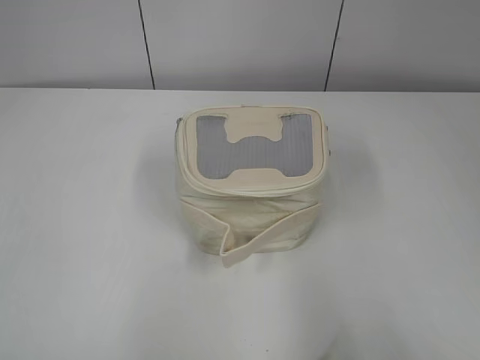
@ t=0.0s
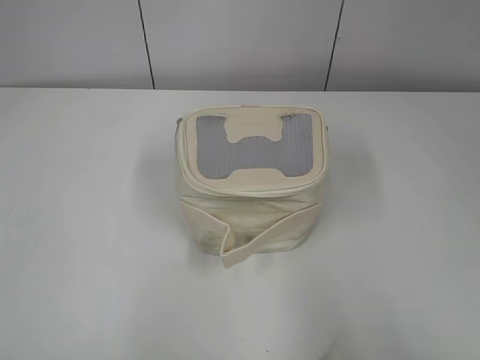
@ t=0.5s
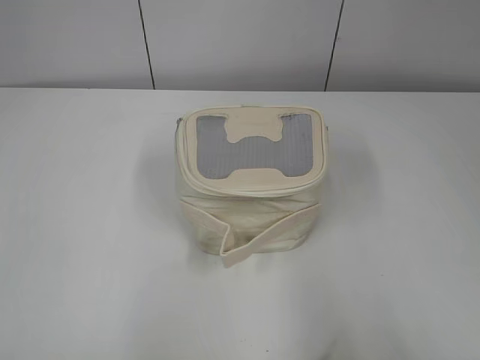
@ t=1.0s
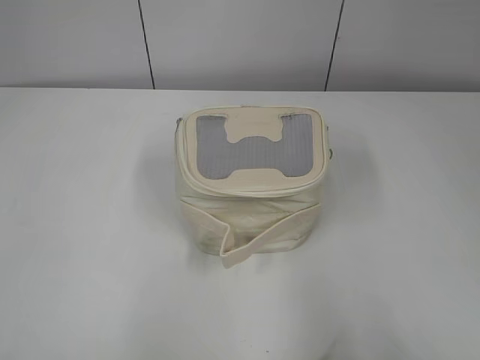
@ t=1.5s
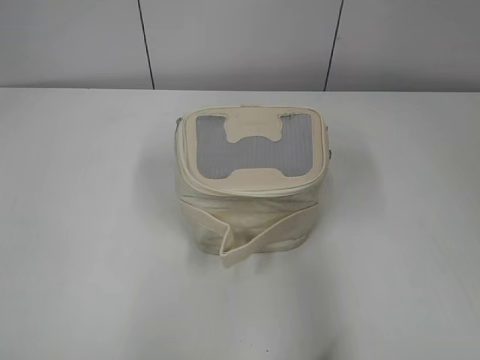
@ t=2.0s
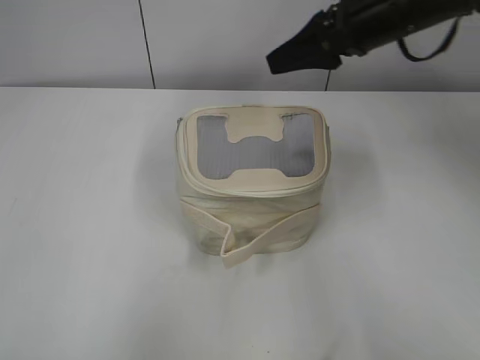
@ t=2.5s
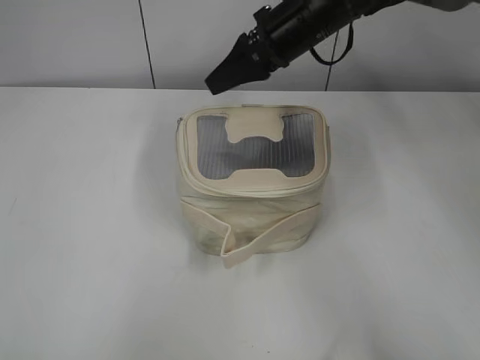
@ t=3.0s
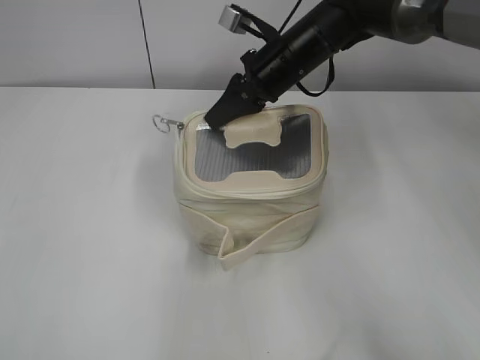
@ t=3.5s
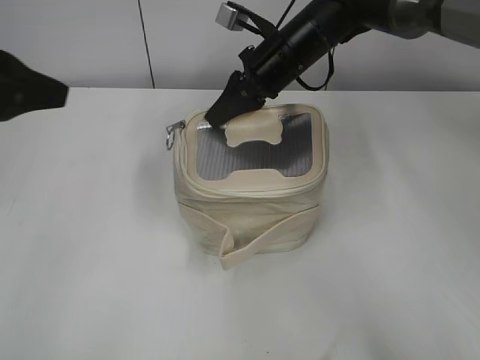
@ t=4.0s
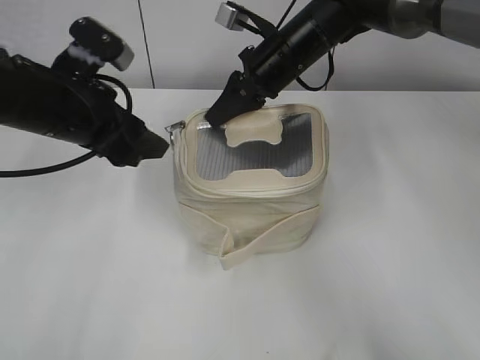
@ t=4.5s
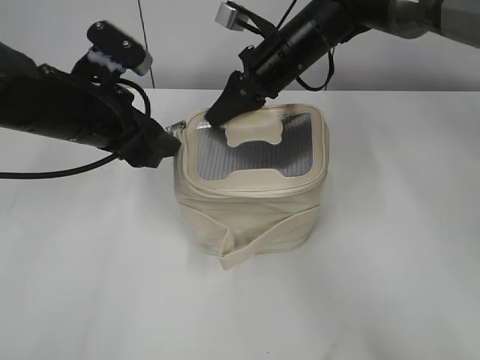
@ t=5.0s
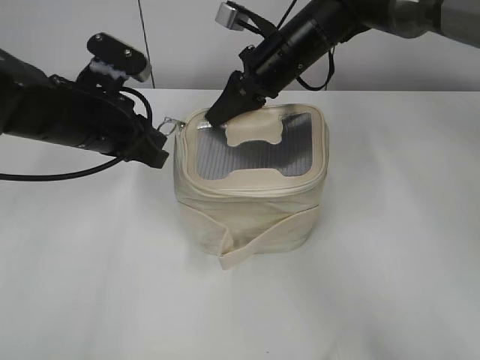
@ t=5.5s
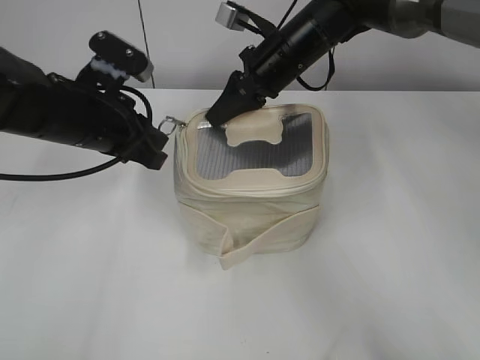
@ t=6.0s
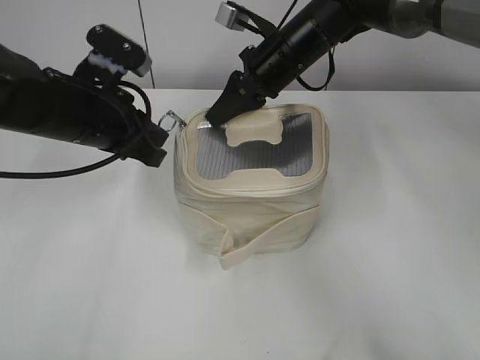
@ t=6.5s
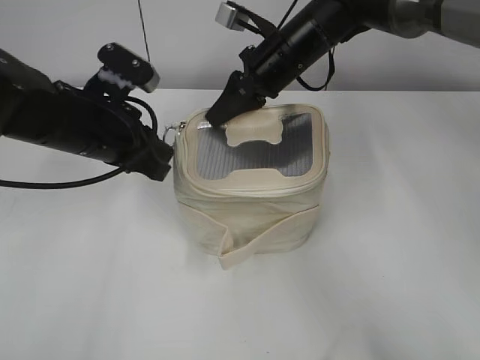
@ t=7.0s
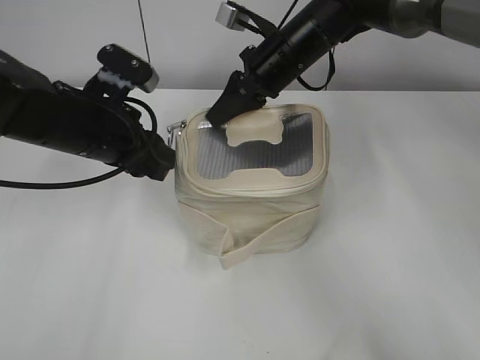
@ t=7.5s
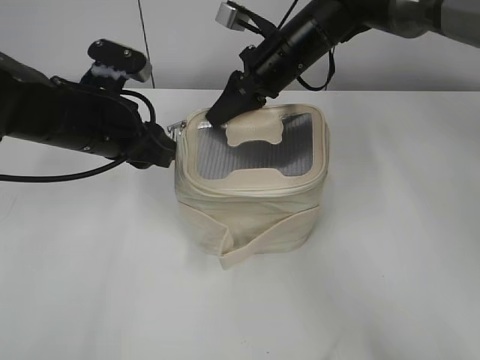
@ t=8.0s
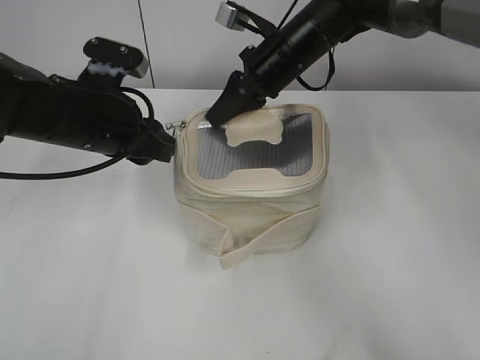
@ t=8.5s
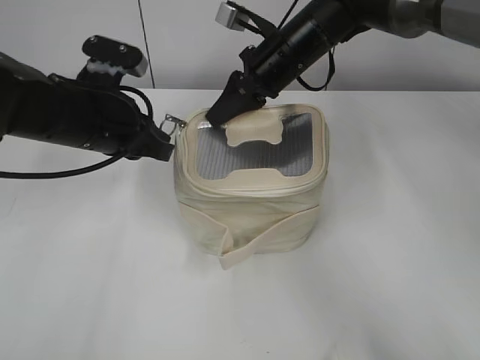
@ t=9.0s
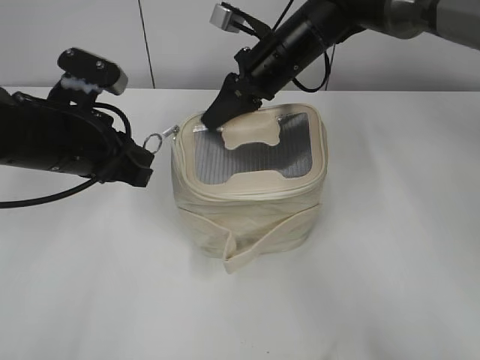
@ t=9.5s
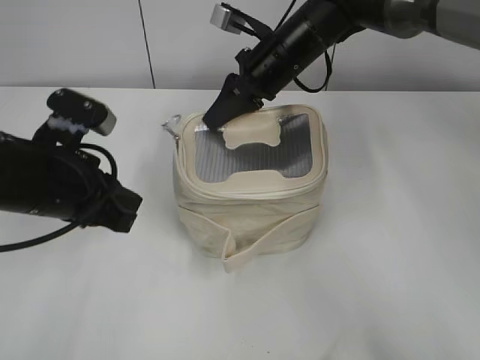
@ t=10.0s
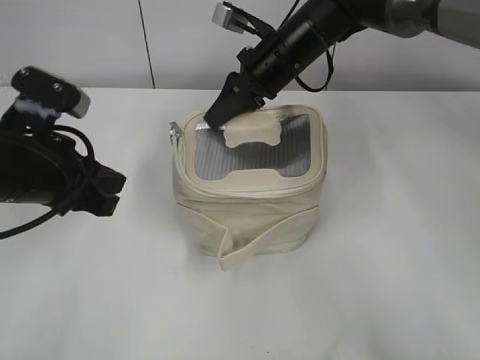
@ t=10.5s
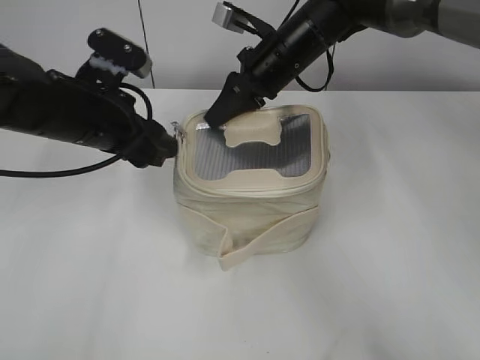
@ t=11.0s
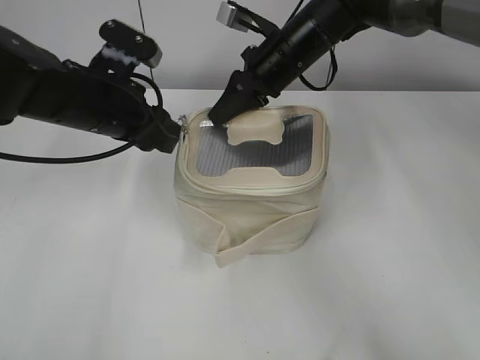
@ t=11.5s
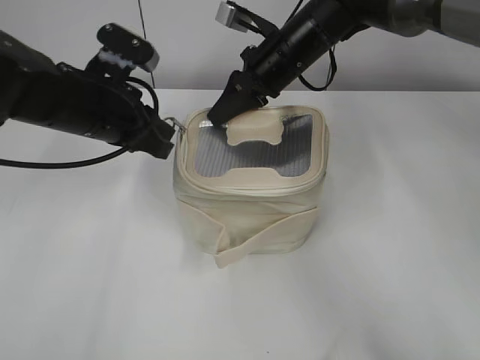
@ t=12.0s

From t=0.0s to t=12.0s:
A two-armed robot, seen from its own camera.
From t=2.0s to t=4.0s: The left gripper moves forward, about 25 cm, and opens up; the right gripper moves forward and to the left, about 40 cm, and closes.
From t=4.0s to t=6.0s: The left gripper shifts some 15 cm downward, to the right and forward, and closes up.
From t=6.0s to t=8.0s: The left gripper opens.
From t=8.0s to t=10.0s: The left gripper is displaced backward by approximately 5 cm, and closes.
From t=10.0s to t=12.0s: The left gripper moves forward, some 10 cm, and opens, then closes once more.

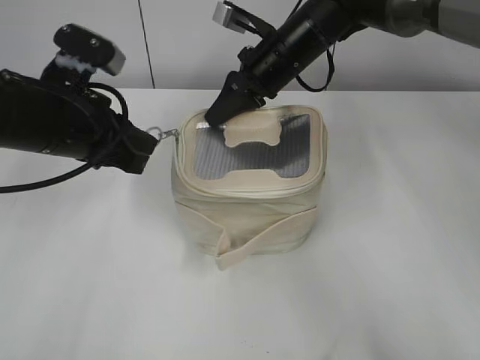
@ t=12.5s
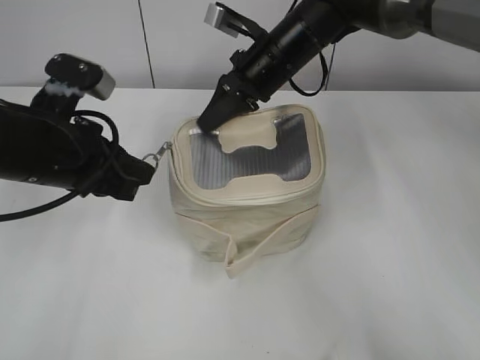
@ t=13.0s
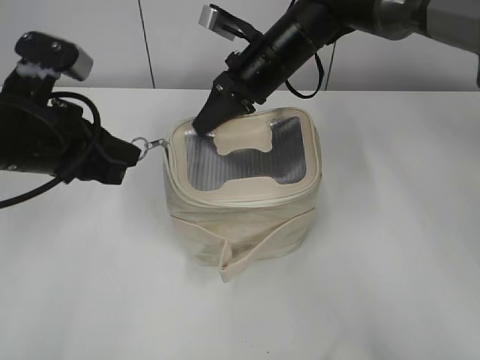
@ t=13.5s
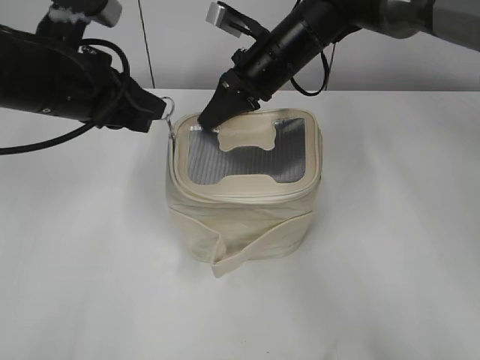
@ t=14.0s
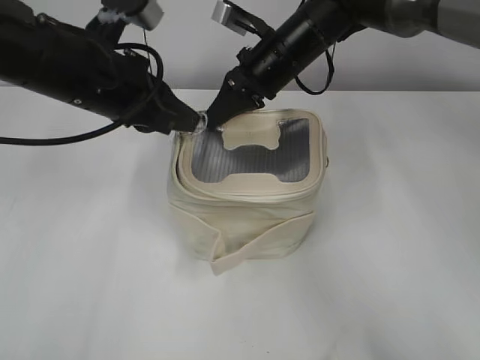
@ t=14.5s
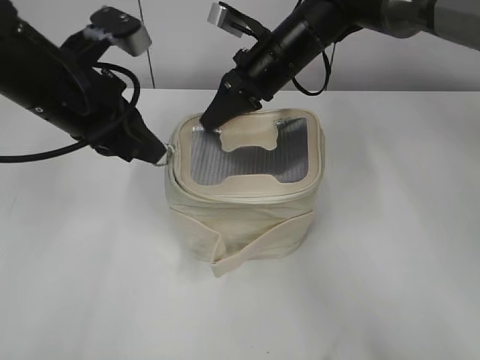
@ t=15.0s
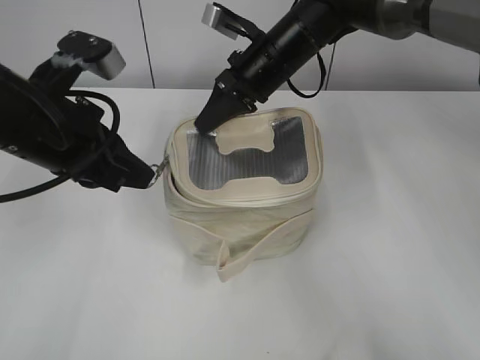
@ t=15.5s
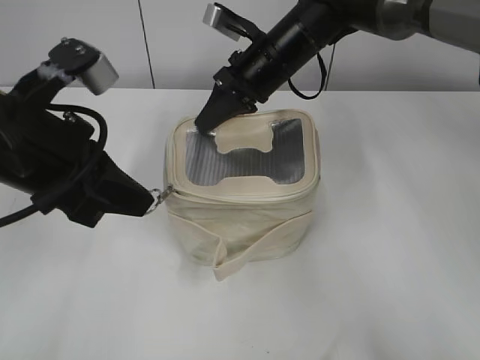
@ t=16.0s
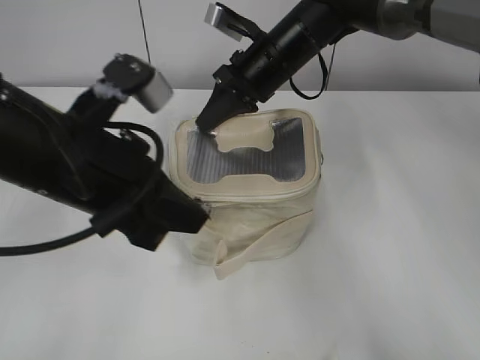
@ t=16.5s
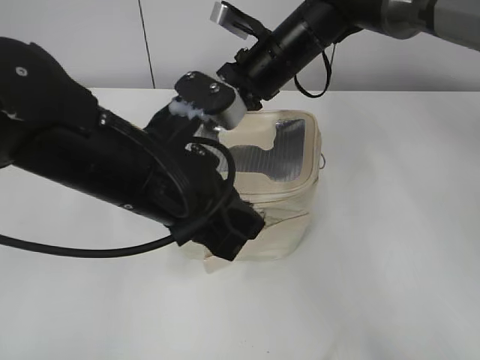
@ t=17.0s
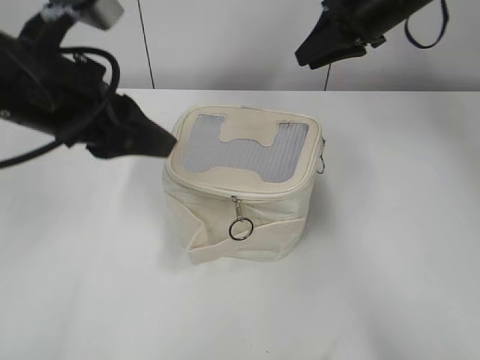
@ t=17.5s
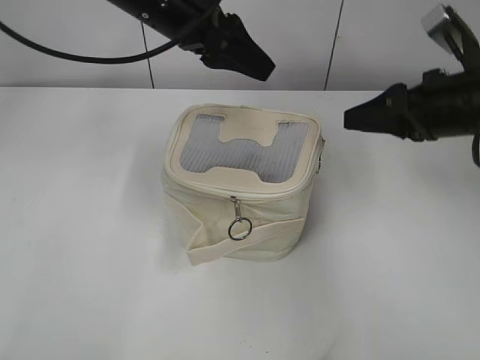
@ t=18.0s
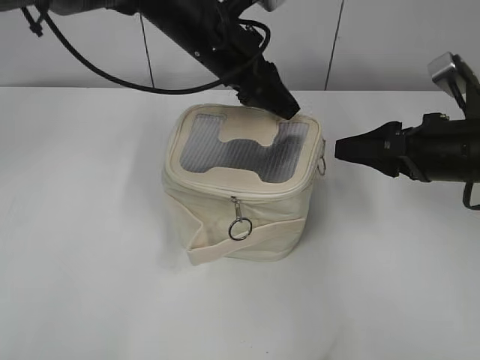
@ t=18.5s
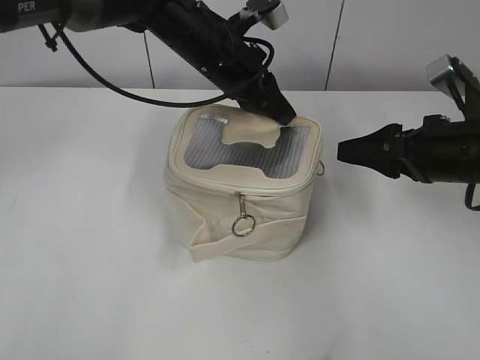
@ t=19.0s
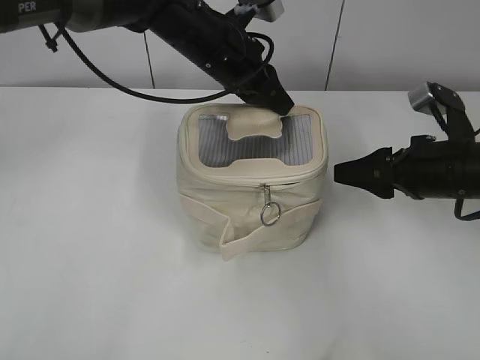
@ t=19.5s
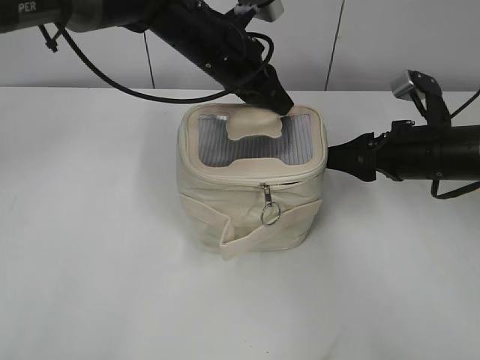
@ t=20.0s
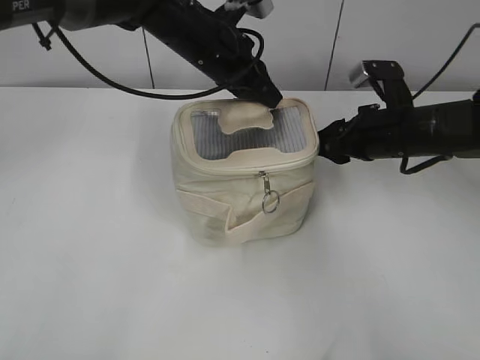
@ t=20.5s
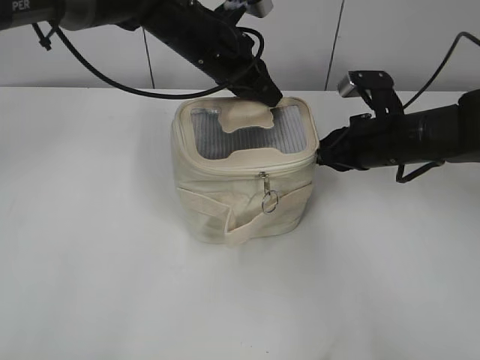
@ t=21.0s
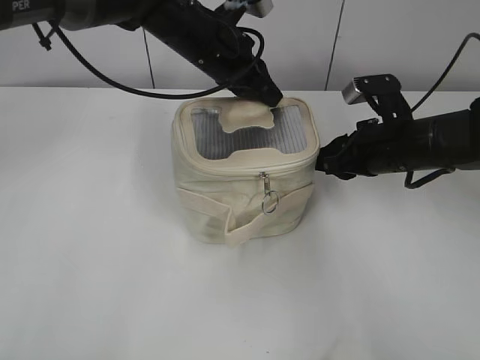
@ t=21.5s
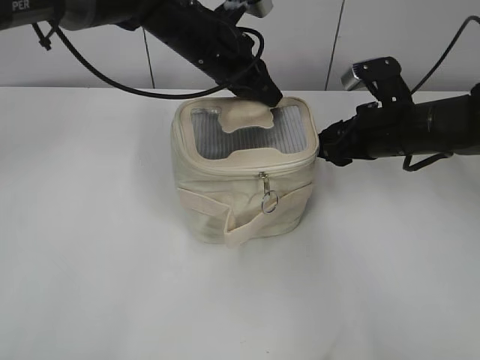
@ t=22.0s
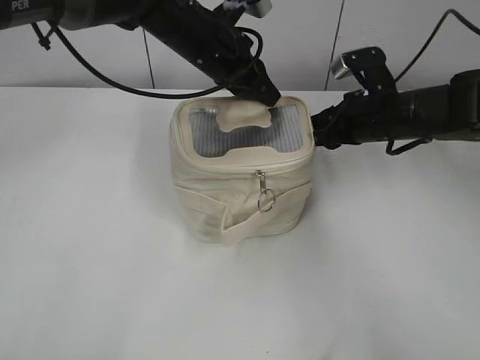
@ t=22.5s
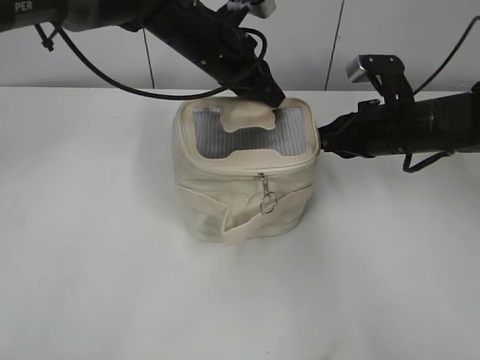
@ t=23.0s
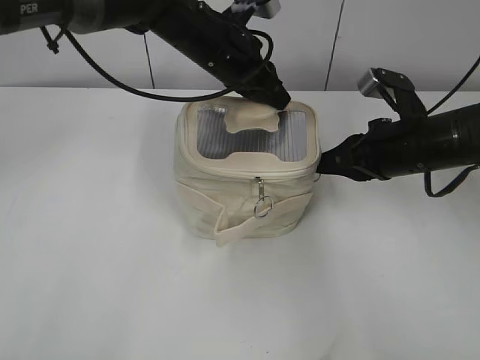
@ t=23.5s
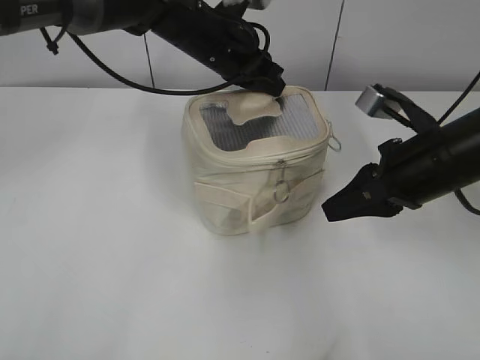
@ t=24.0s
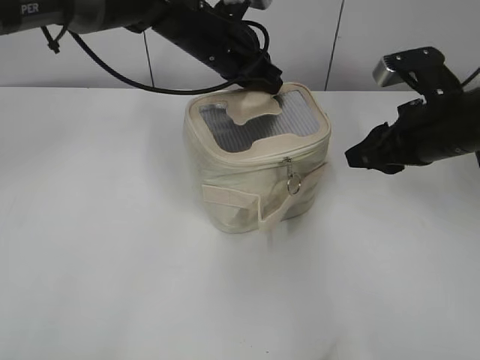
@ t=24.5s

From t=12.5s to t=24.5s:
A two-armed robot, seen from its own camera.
Step, from t=12.5s to t=17.0s: Zip up the bag with your left hand.
From t=12.5s to t=14.5s: The left gripper shifts by some 5 cm.
From t=14.5s to t=16.5s: The left gripper shifts approximately 10 cm backward.
From t=16.5s to t=18.5s: The left gripper heads forward and to the right, covering roughly 20 cm, and opens up. The right gripper is displaced to the right and backward by roughly 25 cm, and opens.
From t=18.5s to t=20.5s: The right gripper is displaced forward by about 5 cm. Meanwhile the left gripper closes its fingers.
From t=20.5s to t=22.5s: The right gripper closes and opens again.
From t=22.5s to t=24.5s: The right gripper goes about 10 cm backward and upward, and closes, then opens again.

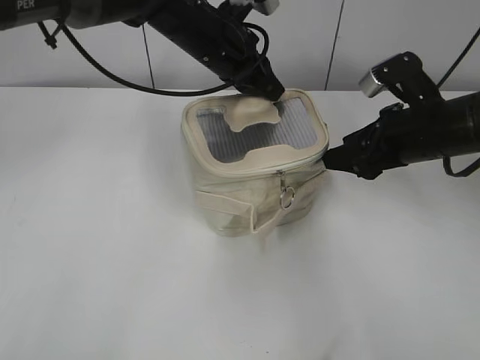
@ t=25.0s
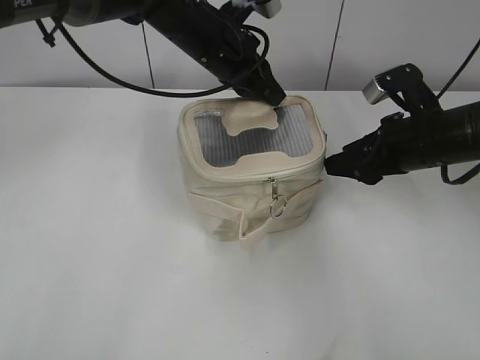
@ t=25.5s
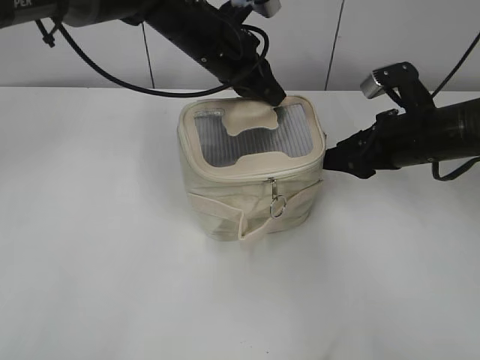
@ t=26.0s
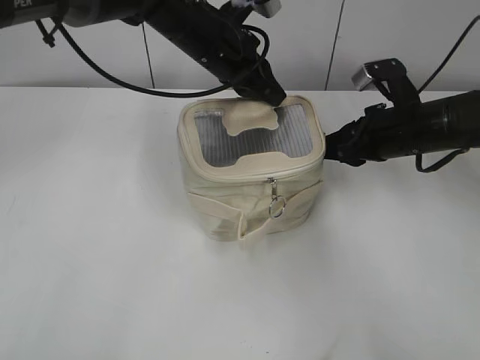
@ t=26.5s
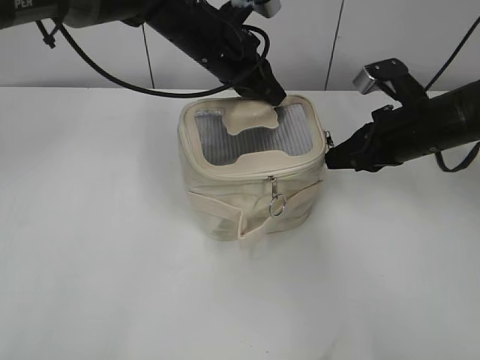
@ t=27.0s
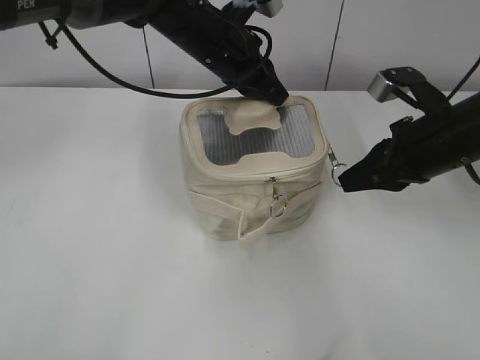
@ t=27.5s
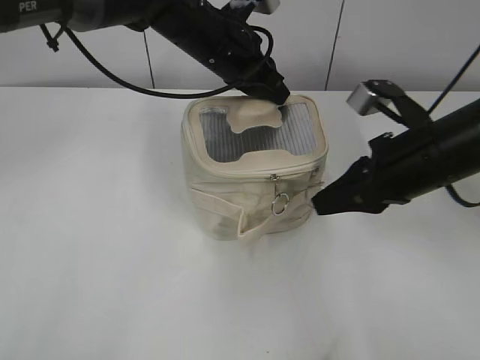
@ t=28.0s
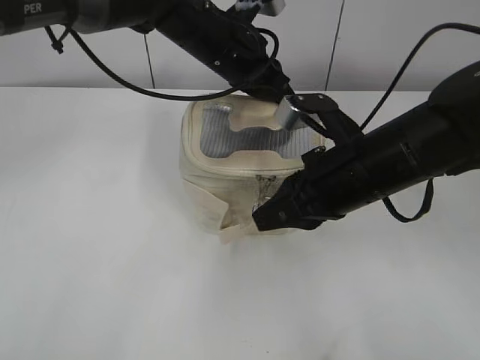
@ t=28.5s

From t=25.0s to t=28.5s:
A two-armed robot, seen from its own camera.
Step, from t=25.0s to t=28.5s: Zip up the bag with your right hand.
From t=25.0s to t=27.0s: The right gripper closes its fingers.
From t=27.0s to t=28.5s: The right gripper heads to the left and backward, covering approximately 10 cm.
